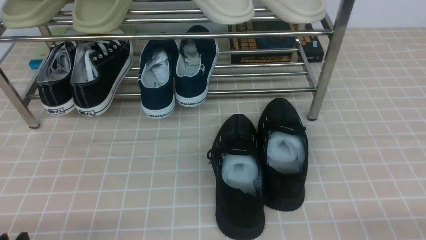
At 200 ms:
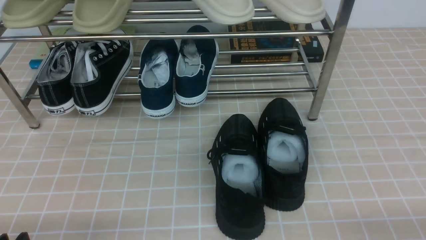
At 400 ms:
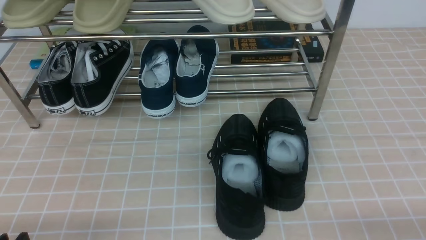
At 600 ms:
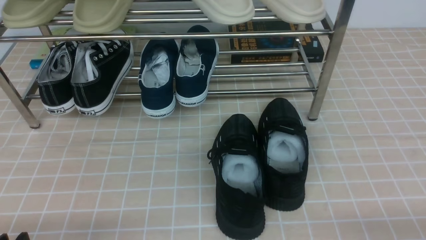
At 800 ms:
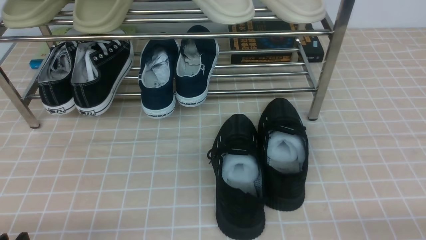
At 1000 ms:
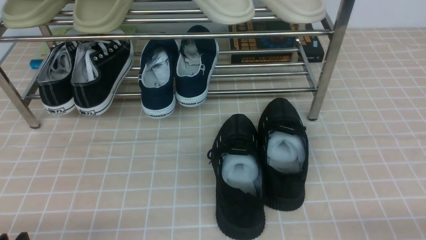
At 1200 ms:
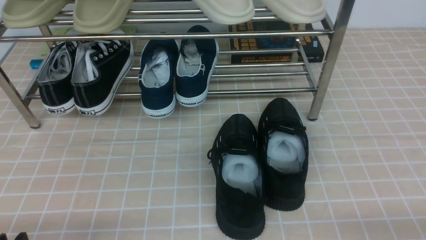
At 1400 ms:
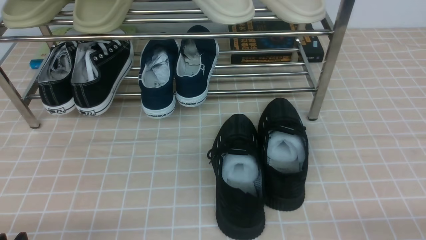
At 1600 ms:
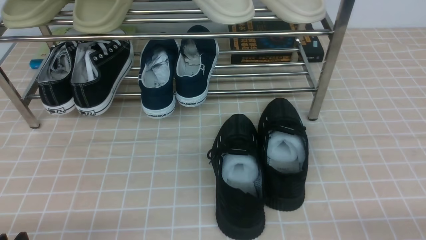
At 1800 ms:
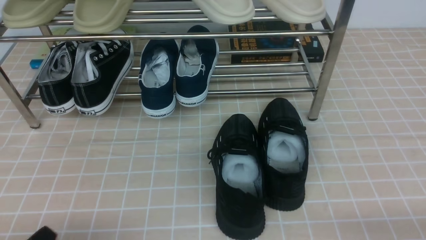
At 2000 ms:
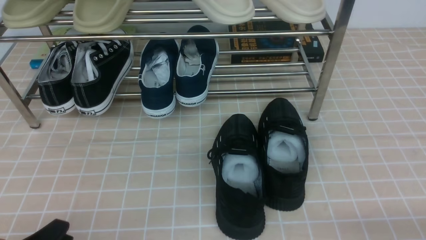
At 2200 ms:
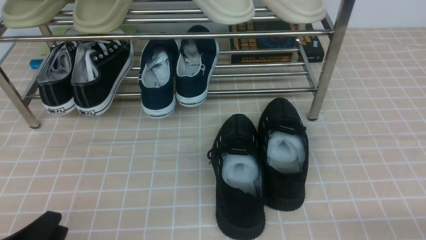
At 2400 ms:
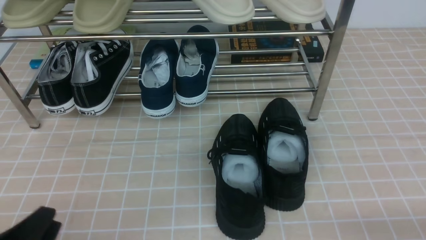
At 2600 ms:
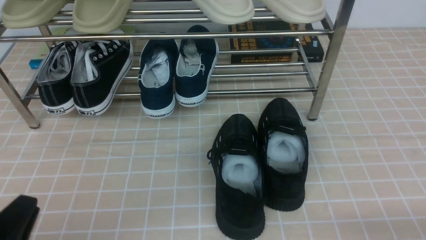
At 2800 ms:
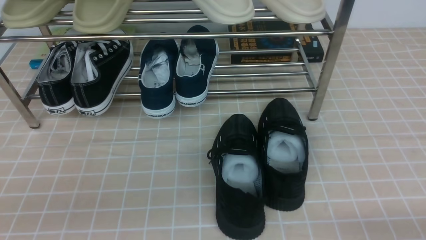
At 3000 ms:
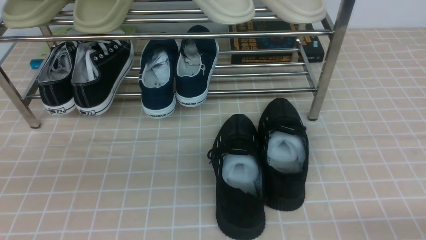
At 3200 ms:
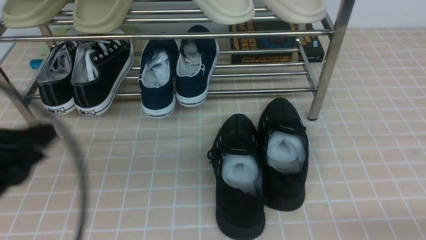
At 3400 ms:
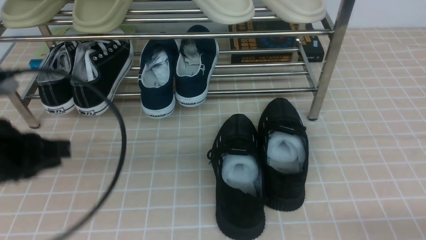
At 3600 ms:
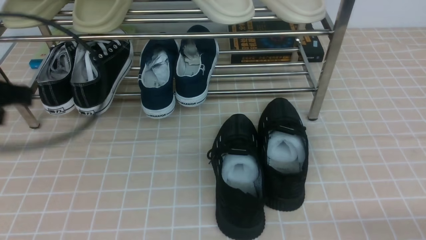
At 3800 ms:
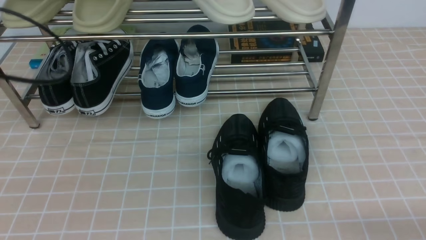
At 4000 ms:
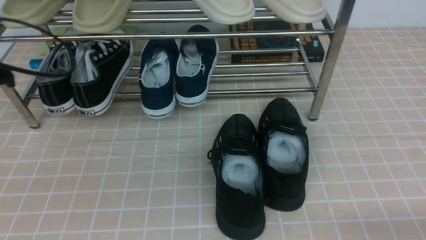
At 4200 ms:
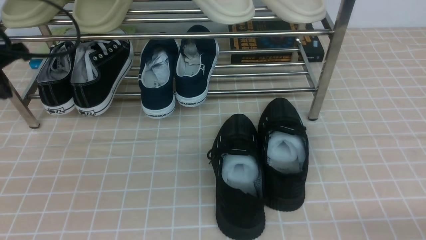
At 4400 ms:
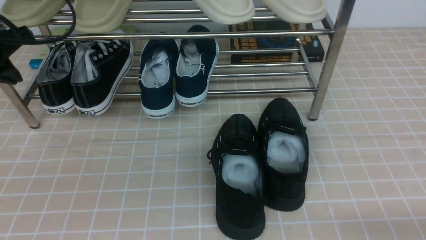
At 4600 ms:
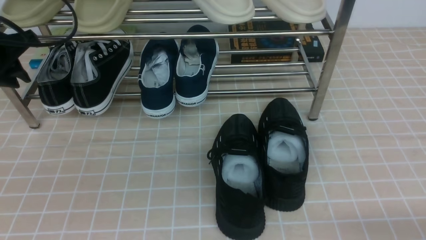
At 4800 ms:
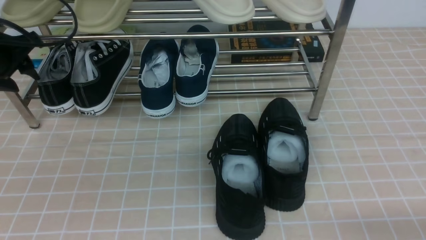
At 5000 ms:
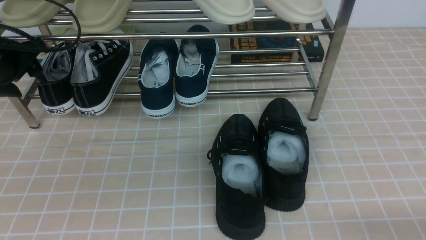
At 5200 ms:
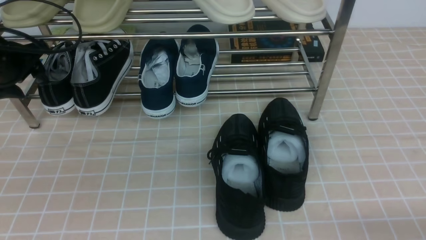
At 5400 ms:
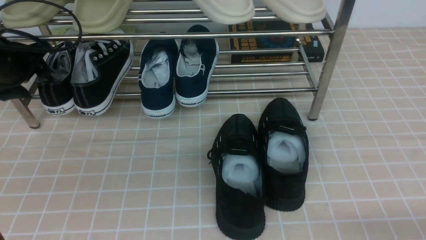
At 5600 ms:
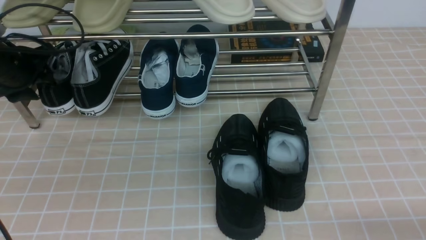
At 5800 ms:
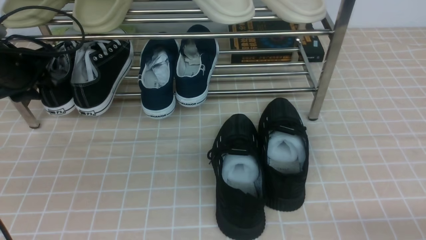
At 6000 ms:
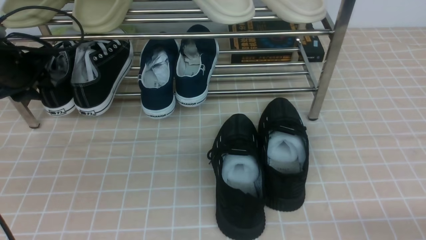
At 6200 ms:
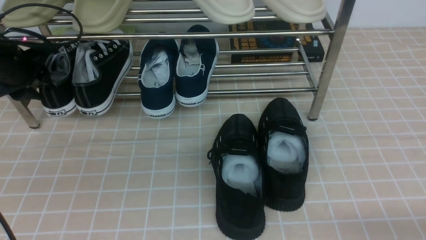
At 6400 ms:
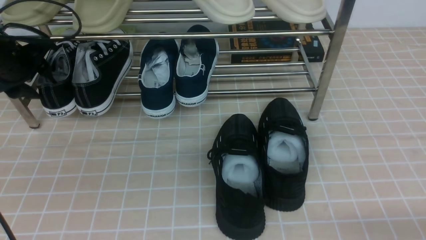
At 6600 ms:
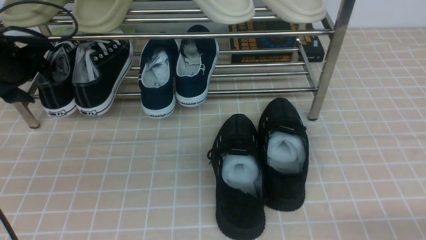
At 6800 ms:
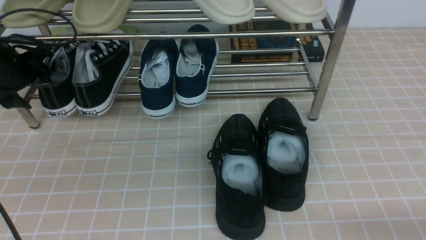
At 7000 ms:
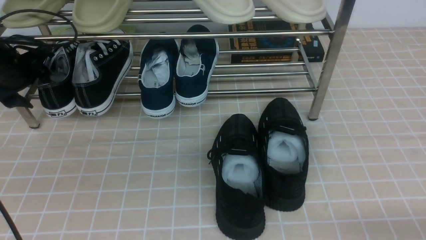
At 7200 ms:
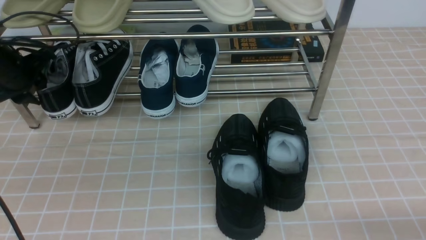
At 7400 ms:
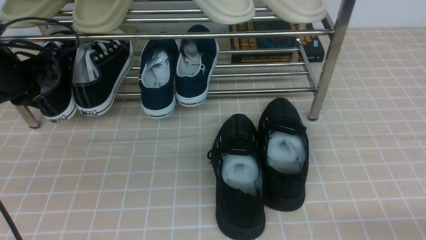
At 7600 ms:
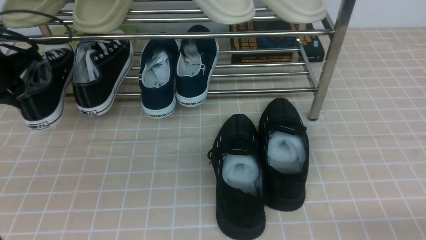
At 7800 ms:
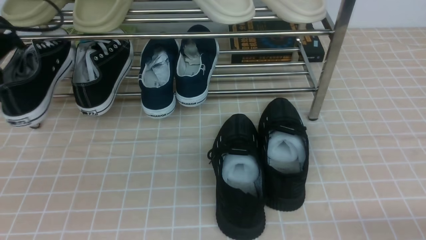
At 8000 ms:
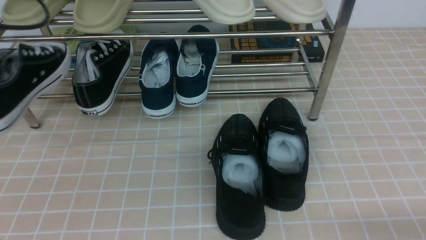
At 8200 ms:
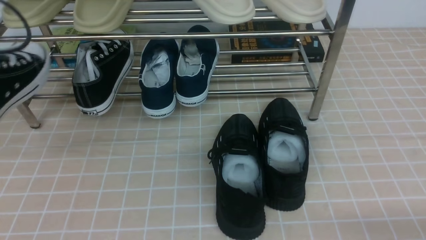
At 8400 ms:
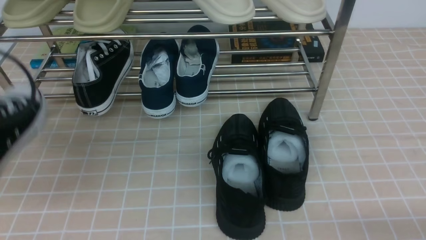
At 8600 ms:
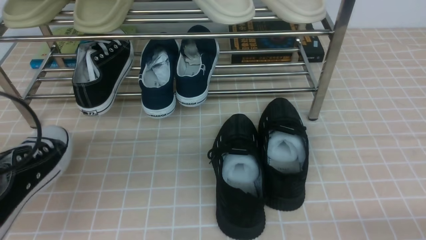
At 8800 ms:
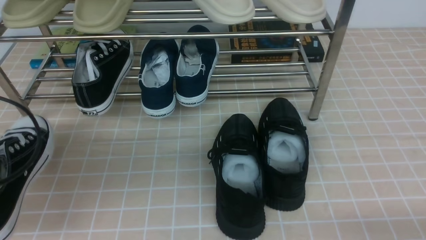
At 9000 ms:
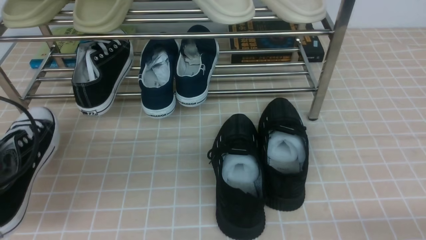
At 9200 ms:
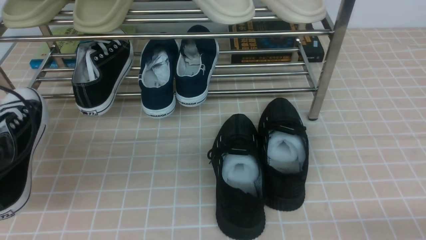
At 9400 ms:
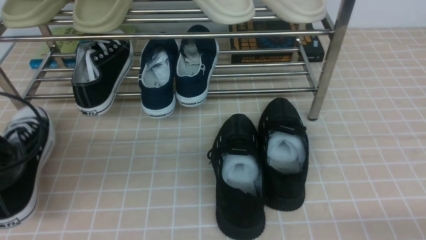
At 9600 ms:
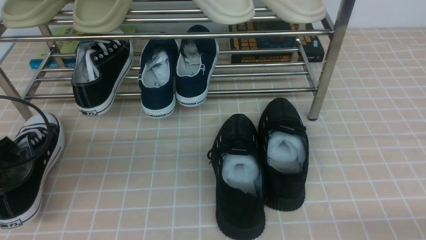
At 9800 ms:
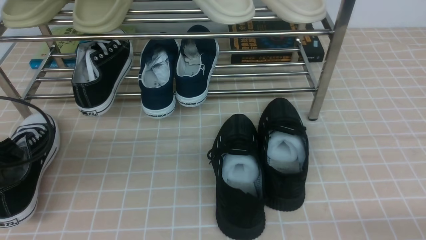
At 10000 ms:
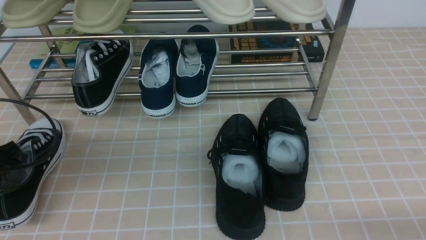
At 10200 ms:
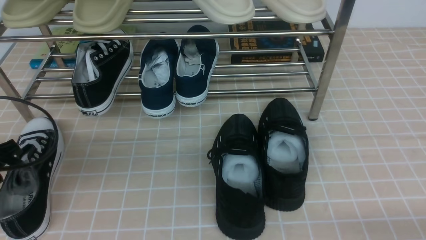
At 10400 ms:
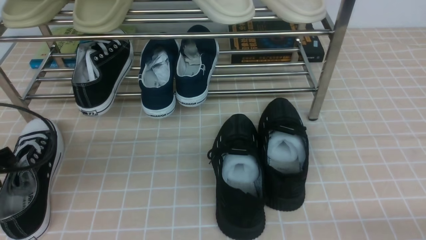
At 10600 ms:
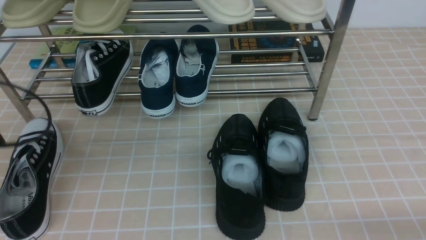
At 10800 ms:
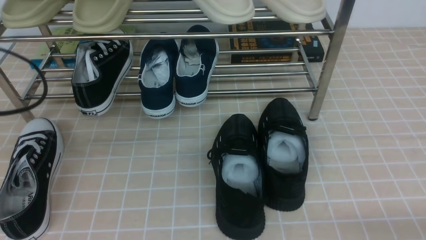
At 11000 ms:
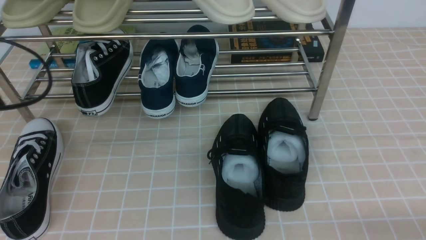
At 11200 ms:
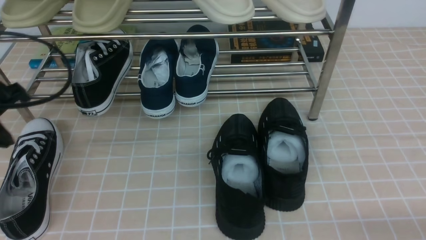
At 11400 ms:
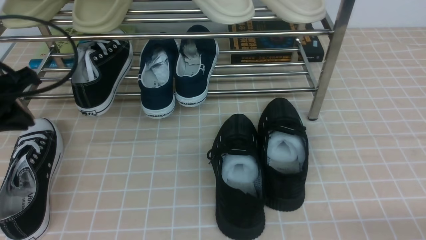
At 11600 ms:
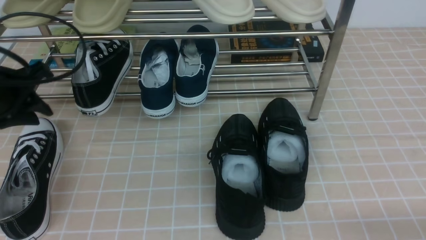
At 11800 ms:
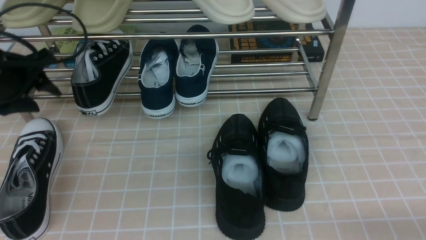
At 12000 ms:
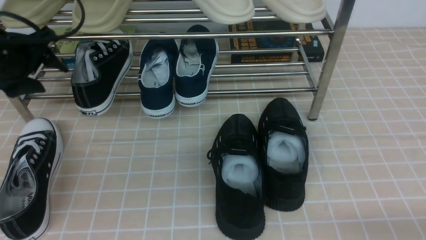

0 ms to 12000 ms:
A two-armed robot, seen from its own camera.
Step, 0 ms to 5800 ms: use the left arm to clamp a shoe on the left side of the shoe rack.
Step, 6000 ms to 10400 ms: Use your left arm to remove the clamped shoe from the shoe rack and put it down.
3000 ms to 4400 ms: The left gripper heads forward, covering about 25 cm.
4400 ms to 6000 ms: The left gripper travels downward and forward by some 10 cm, and opens its fingers.
6000 ms to 7600 ms: The left gripper changes place by about 5 cm, and closes its fingers.
7600 ms to 9000 ms: The left gripper is displaced backward by about 20 cm.
9000 ms to 10400 ms: The left gripper moves some 5 cm, and opens up.
10400 ms to 12000 ms: The left gripper is displaced forward by approximately 15 cm, and opens.

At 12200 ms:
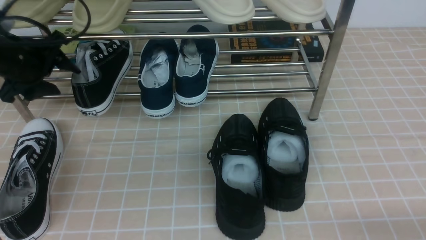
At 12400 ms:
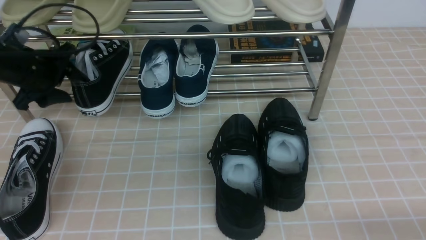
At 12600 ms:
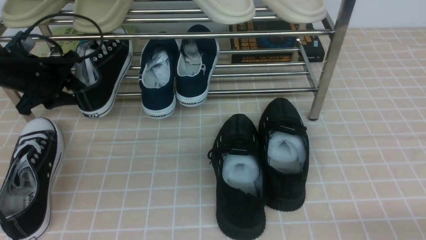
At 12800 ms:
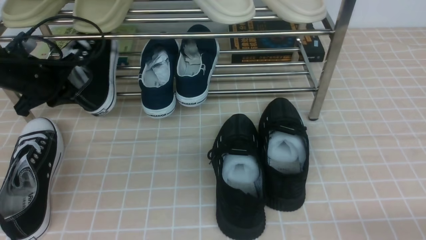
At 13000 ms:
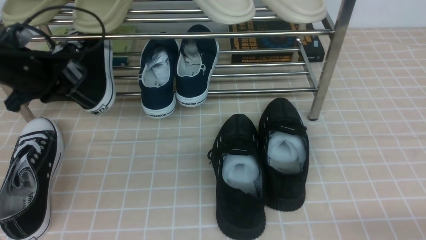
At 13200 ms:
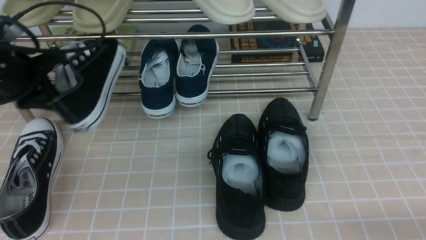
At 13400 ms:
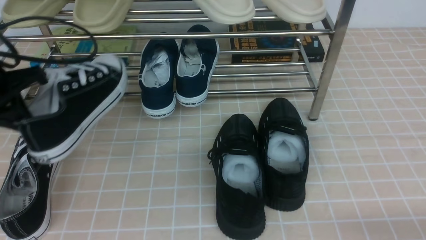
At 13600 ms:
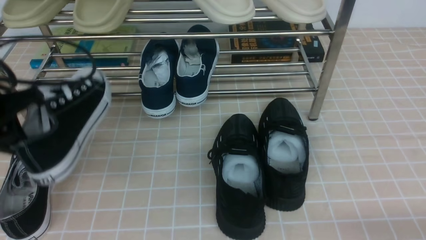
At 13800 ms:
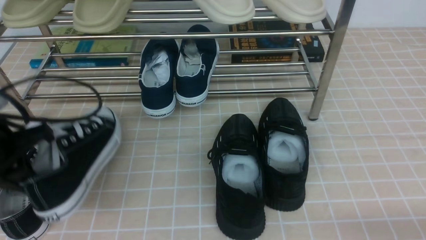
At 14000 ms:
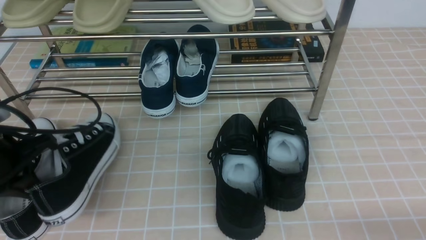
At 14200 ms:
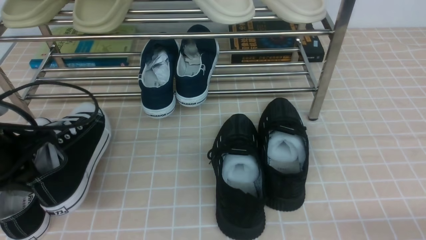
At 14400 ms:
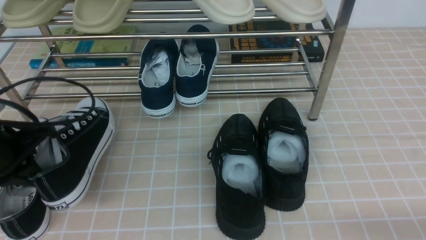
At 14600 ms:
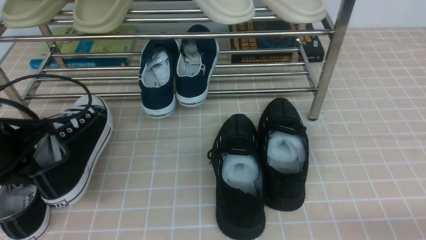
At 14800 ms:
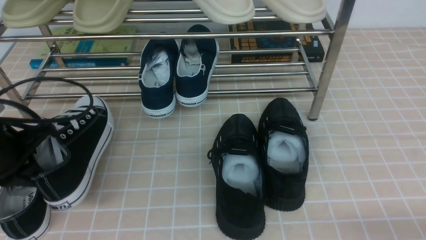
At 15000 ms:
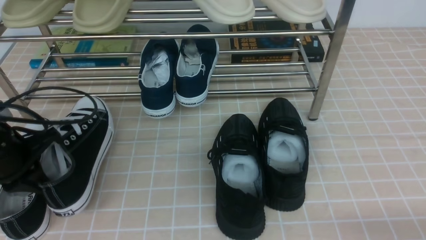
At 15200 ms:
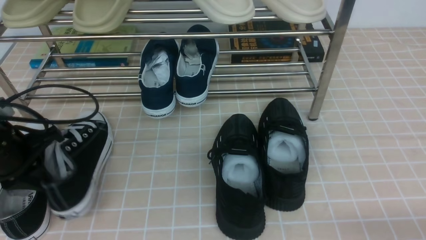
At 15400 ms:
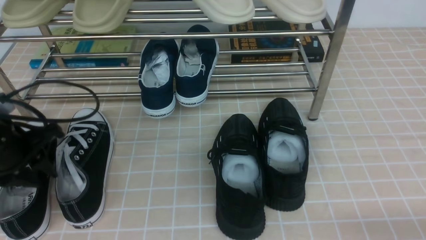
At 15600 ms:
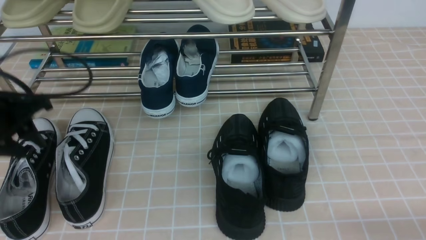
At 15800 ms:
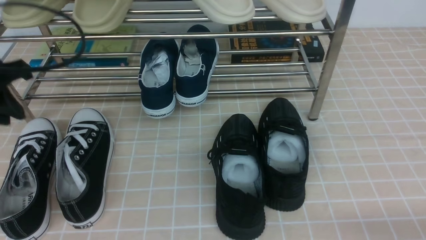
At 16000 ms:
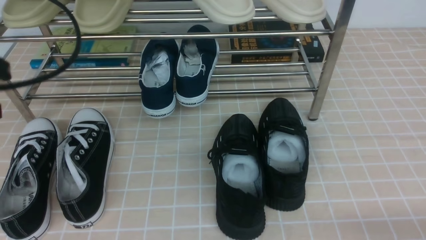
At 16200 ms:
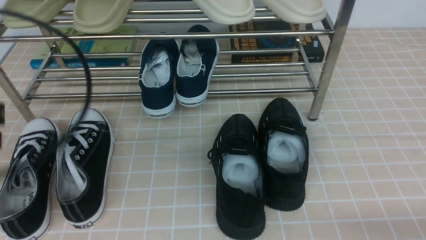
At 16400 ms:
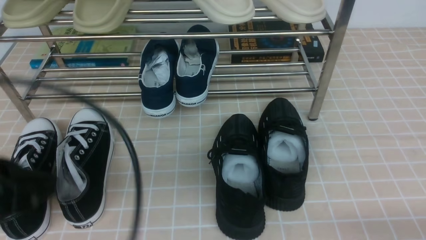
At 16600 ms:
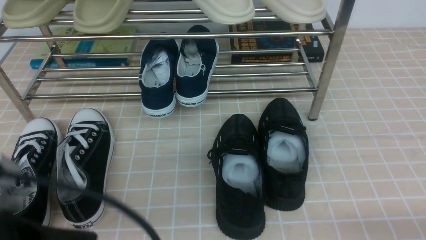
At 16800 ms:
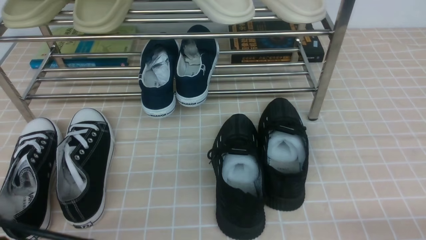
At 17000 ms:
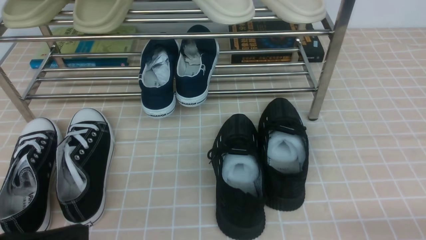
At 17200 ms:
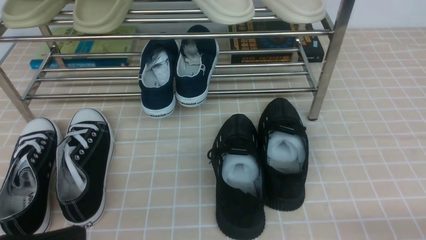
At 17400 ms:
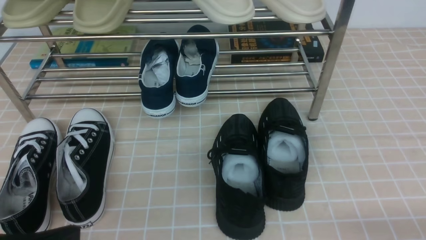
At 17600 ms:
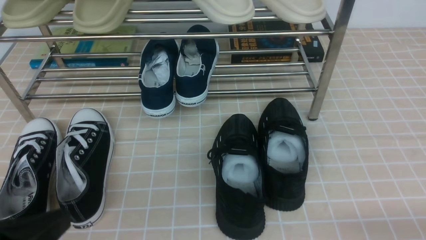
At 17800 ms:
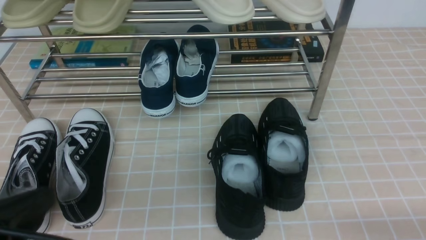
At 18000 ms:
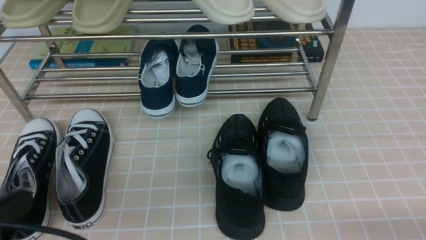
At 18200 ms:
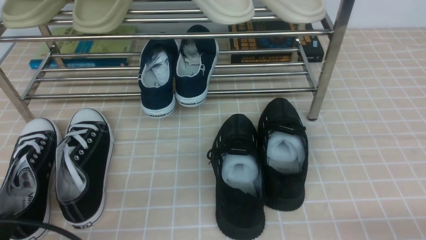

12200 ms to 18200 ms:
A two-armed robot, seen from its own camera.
Step, 12800 ms to 15400 ms: Use your left arm to remove the clamped shoe from the shoe rack and put it down.
12200 ms to 13800 ms: The left gripper goes approximately 15 cm backward, and closes up.
13800 ms to 15200 ms: The grippers make only small movements.
15200 ms to 16600 ms: The left gripper travels backward and to the right by some 20 cm.
16600 ms to 18200 ms: The left gripper travels downward by some 5 cm.
